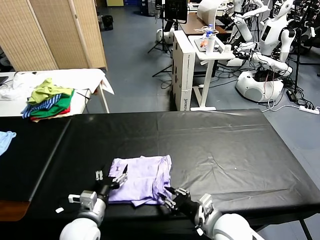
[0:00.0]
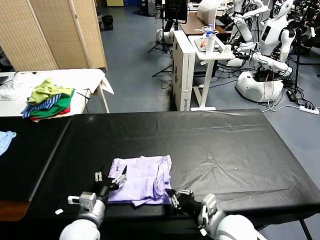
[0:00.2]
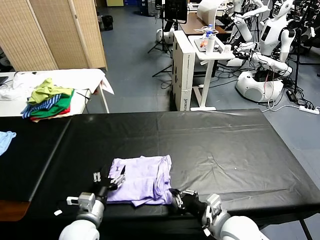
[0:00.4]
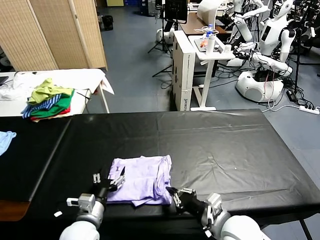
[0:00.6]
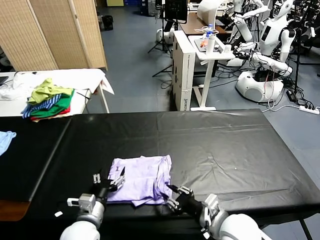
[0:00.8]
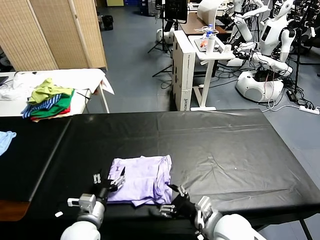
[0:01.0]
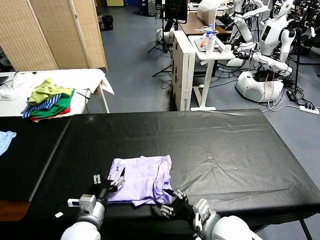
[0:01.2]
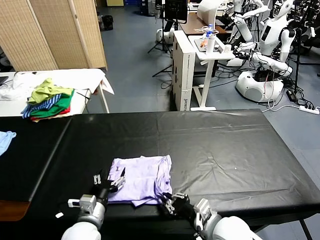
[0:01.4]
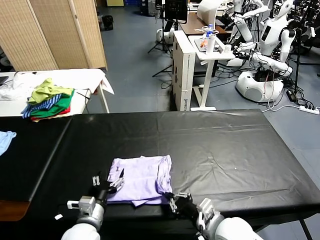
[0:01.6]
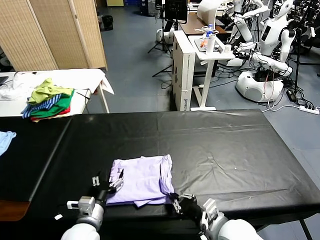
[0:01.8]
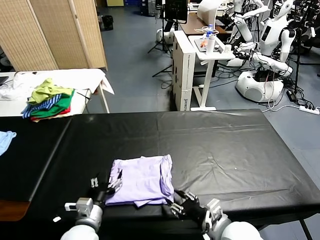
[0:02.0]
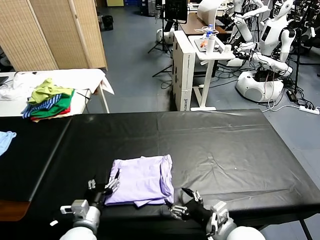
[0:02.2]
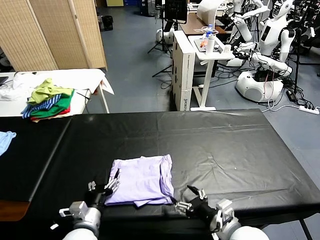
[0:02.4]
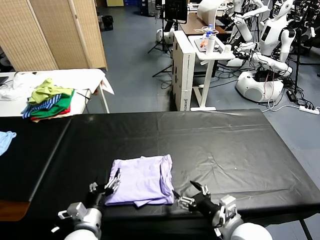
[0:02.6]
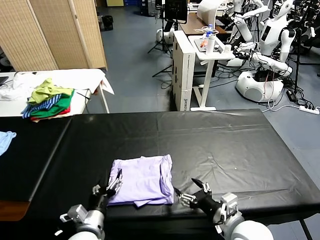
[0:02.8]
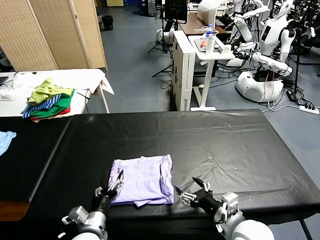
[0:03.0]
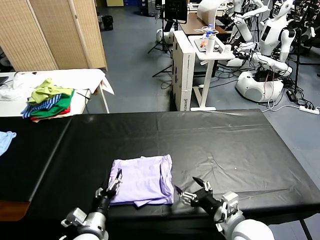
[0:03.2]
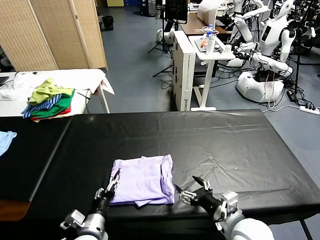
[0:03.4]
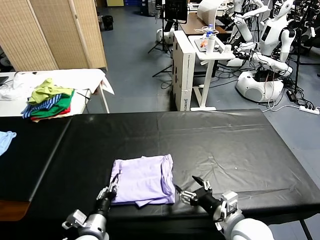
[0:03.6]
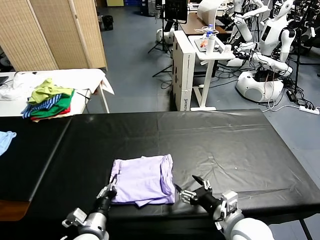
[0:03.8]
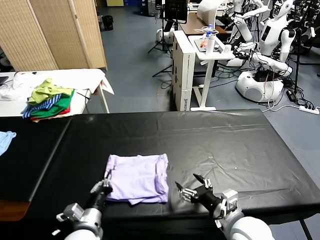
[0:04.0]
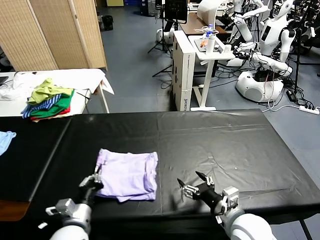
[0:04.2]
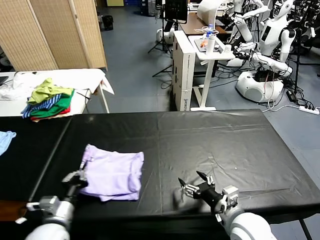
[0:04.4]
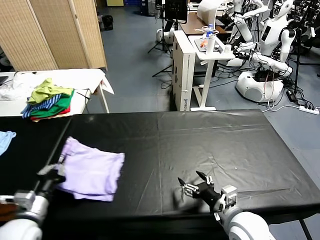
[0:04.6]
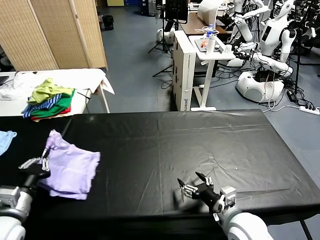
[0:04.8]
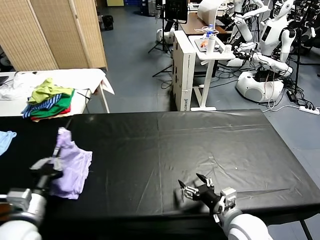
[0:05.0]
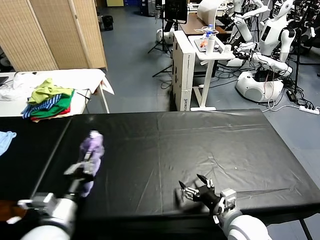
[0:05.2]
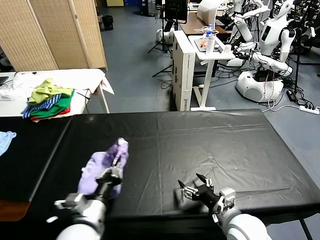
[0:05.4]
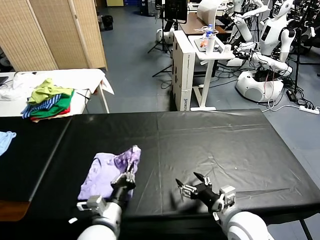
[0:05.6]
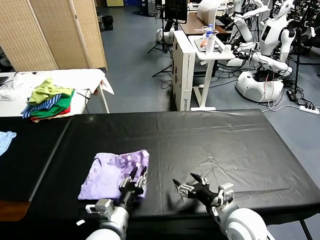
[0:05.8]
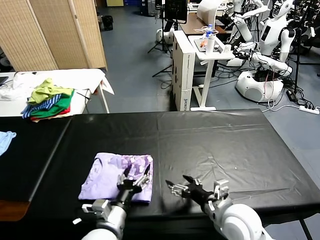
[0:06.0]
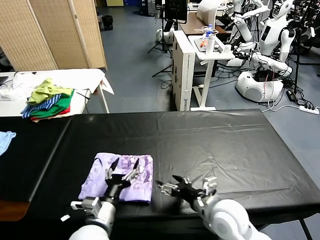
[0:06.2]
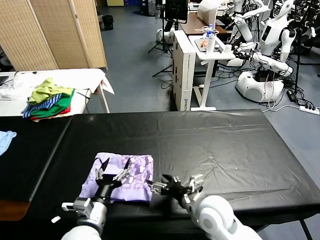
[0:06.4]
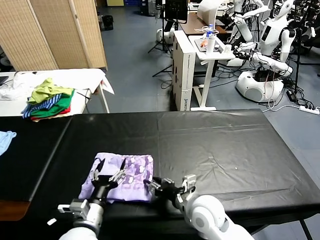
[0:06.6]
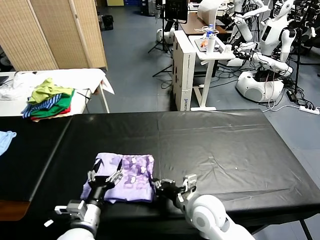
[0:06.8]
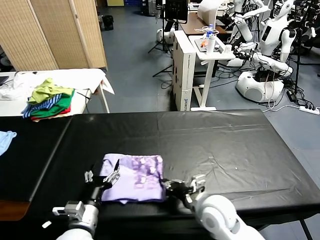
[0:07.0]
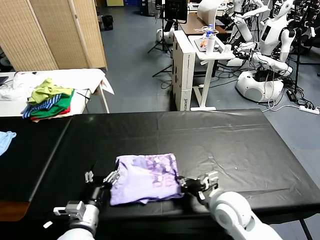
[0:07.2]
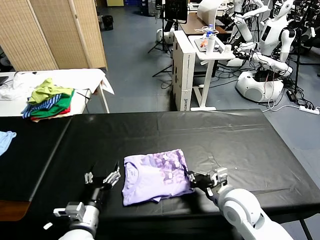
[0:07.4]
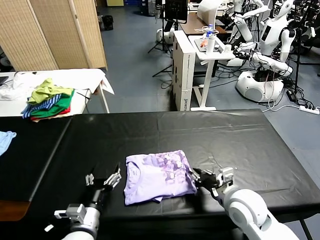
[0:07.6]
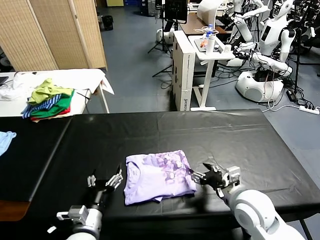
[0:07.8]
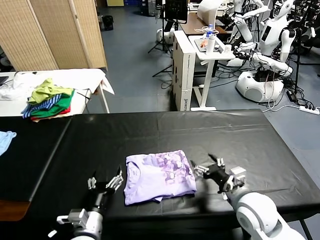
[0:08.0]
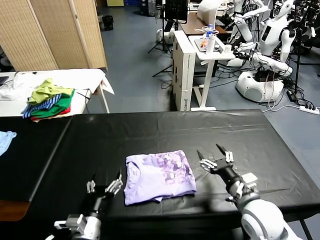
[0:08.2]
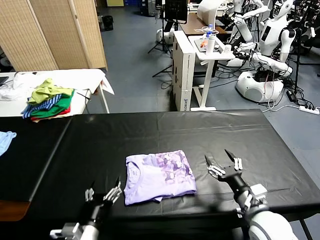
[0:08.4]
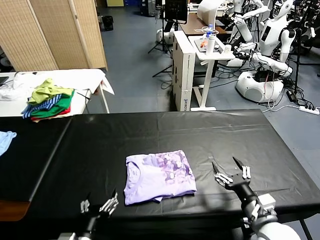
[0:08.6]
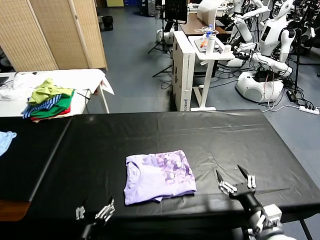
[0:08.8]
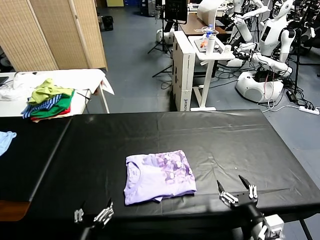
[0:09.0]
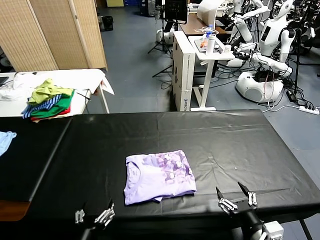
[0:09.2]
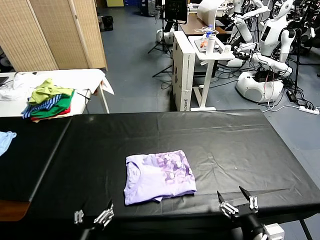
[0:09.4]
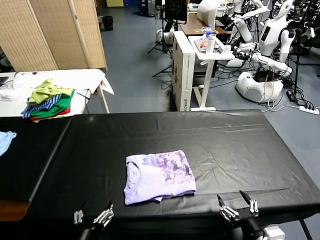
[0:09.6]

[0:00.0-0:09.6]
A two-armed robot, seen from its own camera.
Task of the whole recording: fold and organize the clothes.
Step, 0:00.0 to 0:05.8: Flip the folded clothes over with left gripper.
Step, 0:06.2 to 0:07.8: Drag the clothes to the center of the table.
0:00.0 to 0:01.6: The right gripper opens and closes again.
0:01.6 to 0:03.2: The right gripper opens its fingers.
0:03.2 to 0:04.8: The left gripper goes about 20 cm to the left and upward, and closes up.
0:04.8 to 0:06.4: The right gripper is displaced to the left by some 5 cm, while the left gripper heads to the right, covering about 20 cm, and opens up.
0:06.4 to 0:08.0: The right gripper travels to the right by roughly 10 cm, and closes, then opens again.
0:08.0 to 0:09.6: The right gripper goes about 15 cm backward, while the left gripper moves backward, approximately 10 cm.
